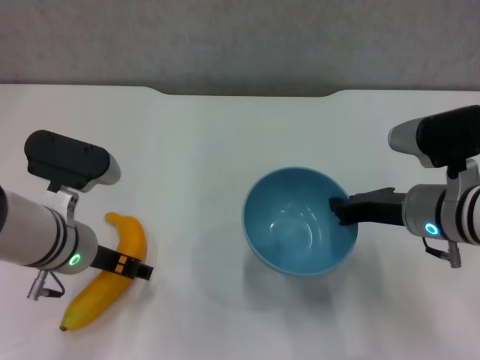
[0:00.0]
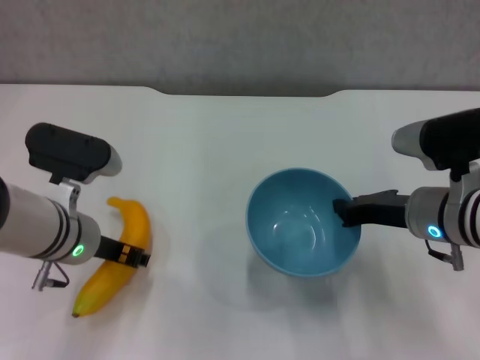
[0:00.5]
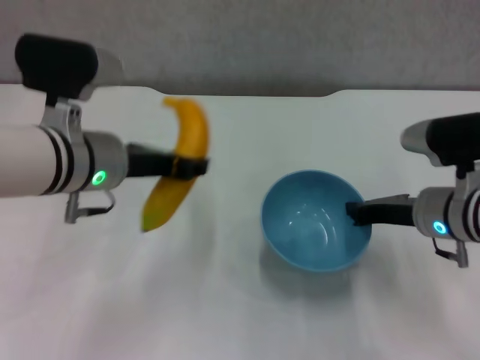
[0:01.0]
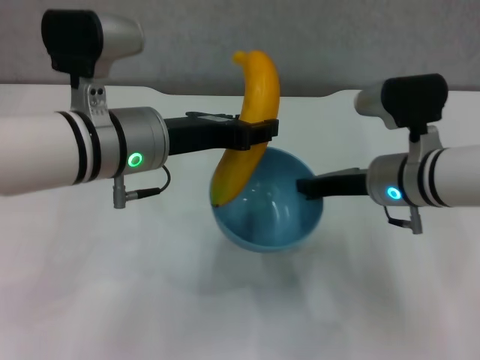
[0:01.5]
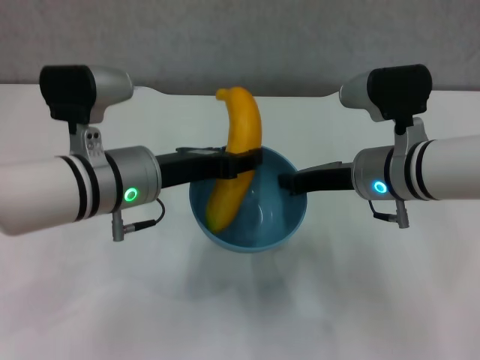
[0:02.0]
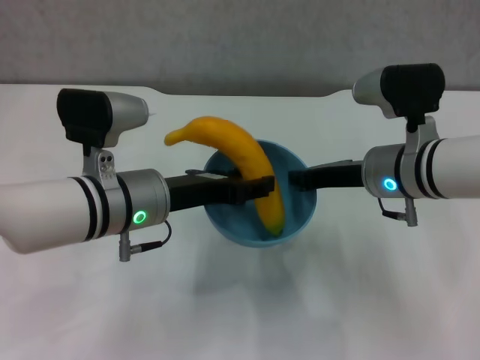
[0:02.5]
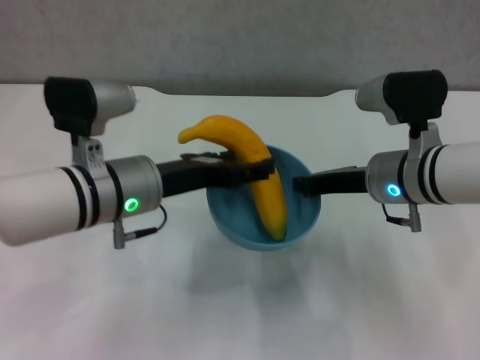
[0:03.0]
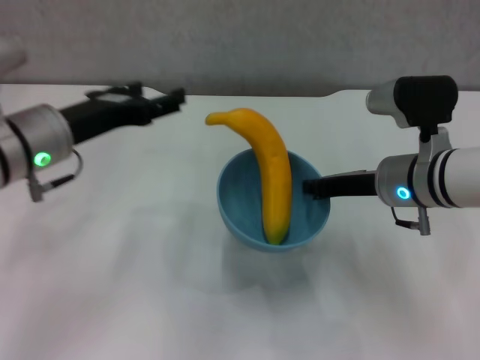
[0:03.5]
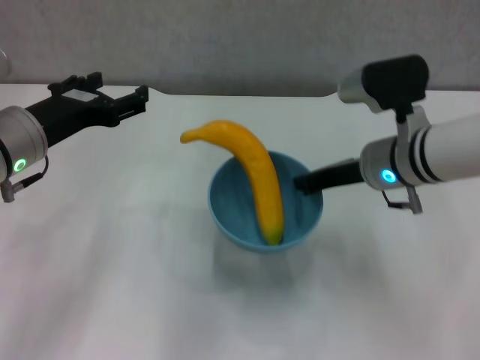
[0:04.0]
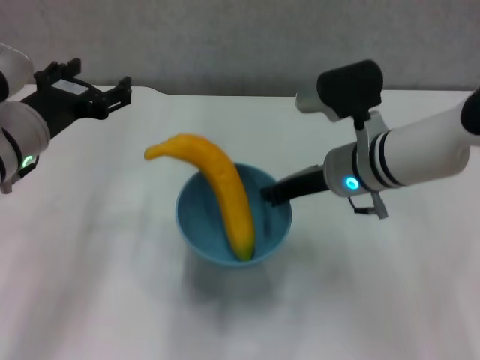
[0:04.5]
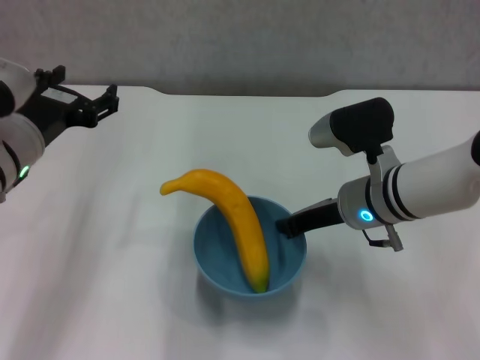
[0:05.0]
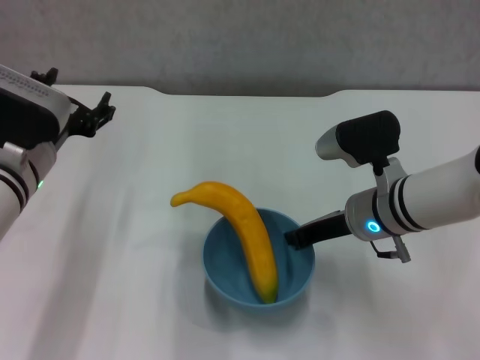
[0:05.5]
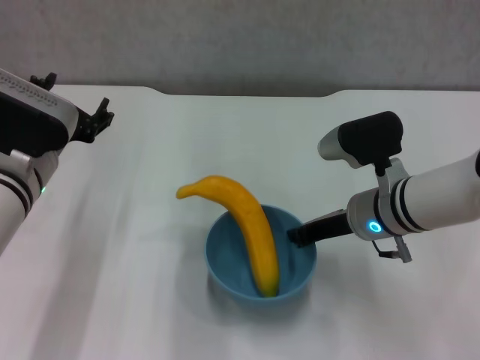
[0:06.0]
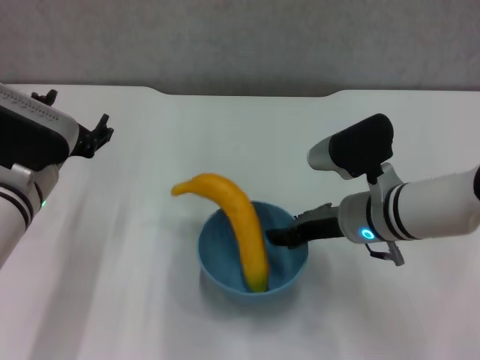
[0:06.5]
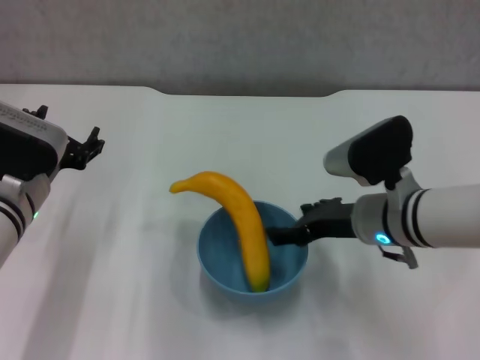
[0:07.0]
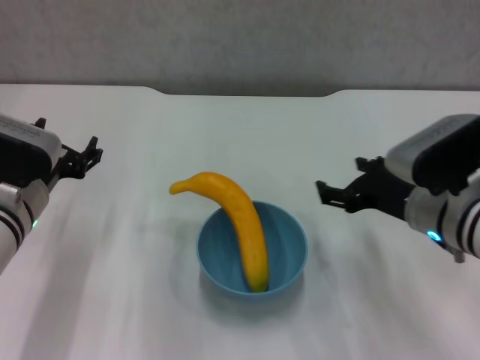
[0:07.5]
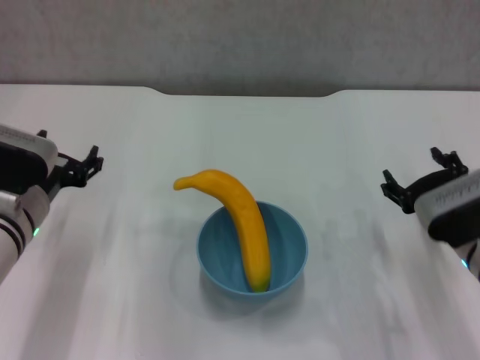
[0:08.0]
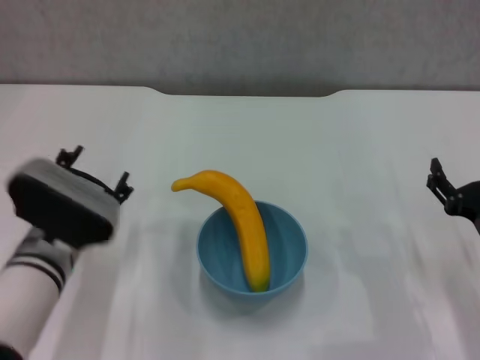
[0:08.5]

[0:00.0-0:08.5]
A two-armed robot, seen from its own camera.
Step, 0:00.5 to 0:03.0: Place the banana in the blue bowl with left gripper.
Step, 0:03.5 to 0:06.5: Place the bowl on the table with right gripper.
0:00.0 to 0:02.0: The right gripper shifts by approximately 5 cm. Meanwhile the left gripper moves upward and to the right, about 5 cm, and closes its fingers.
0:02.0 to 0:04.0: The left gripper heads to the left, covering approximately 10 cm, and opens its fingers.
0:04.0 to 0:06.5: The right gripper shifts by some 5 cm. The left gripper moves roughly 5 cm.
0:06.5 to 0:08.5: The right gripper shifts about 15 cm to the right and backward, and opens up; the left gripper heads downward, covering approximately 5 cm.
